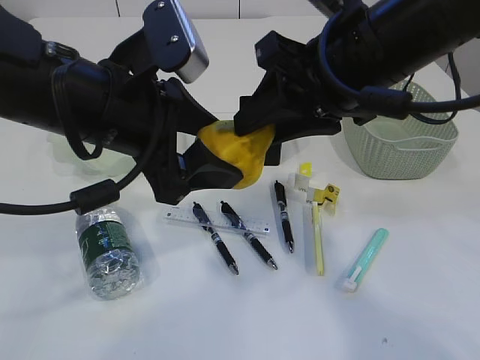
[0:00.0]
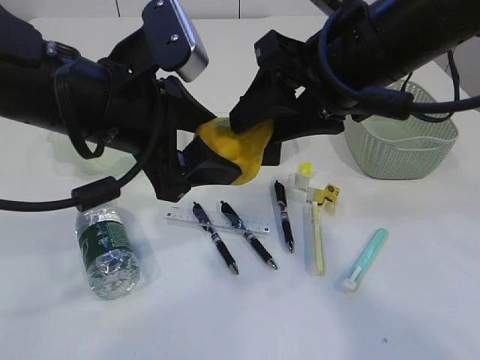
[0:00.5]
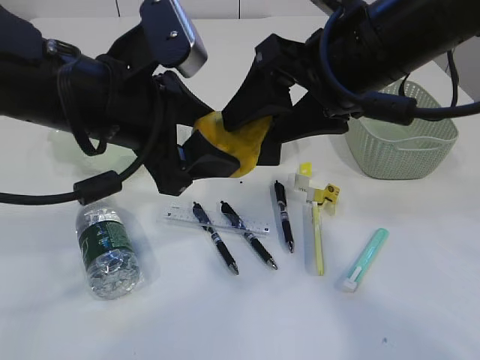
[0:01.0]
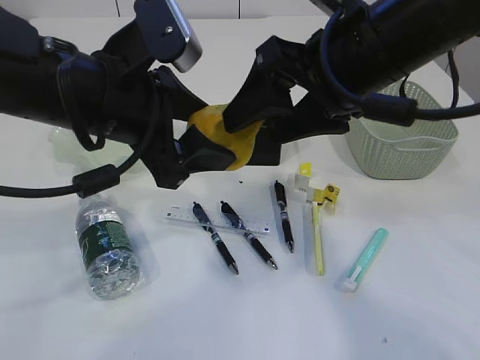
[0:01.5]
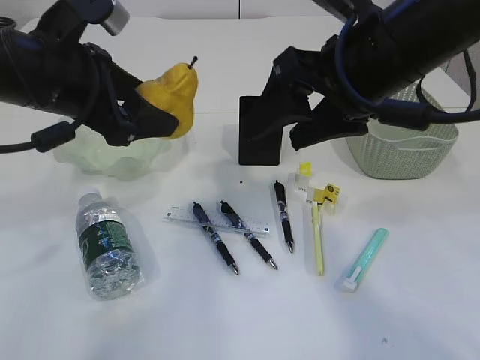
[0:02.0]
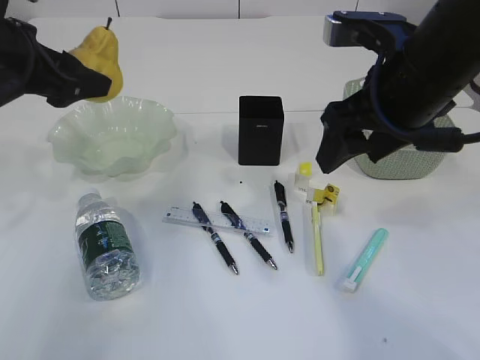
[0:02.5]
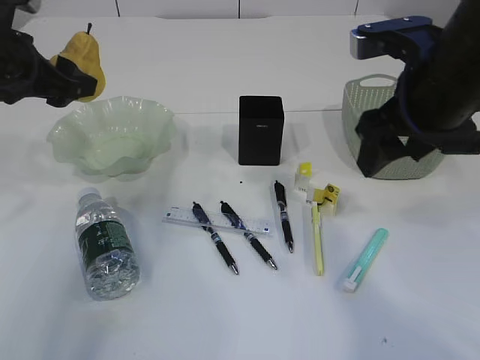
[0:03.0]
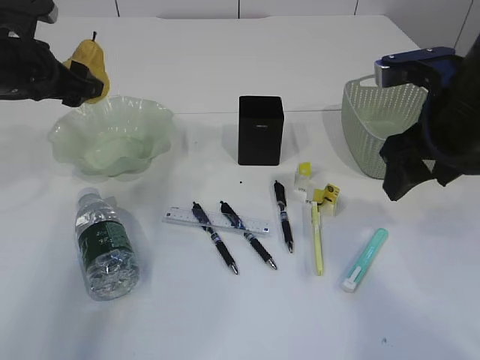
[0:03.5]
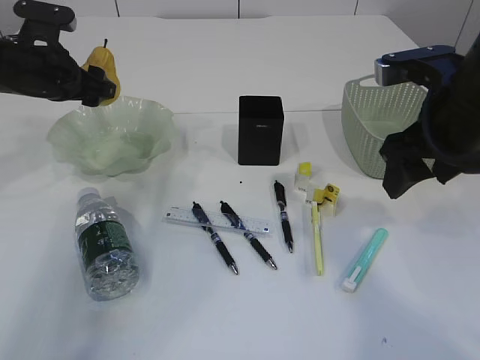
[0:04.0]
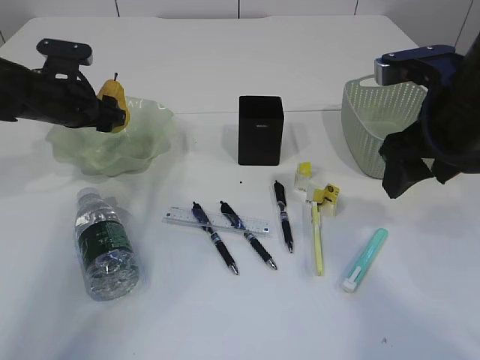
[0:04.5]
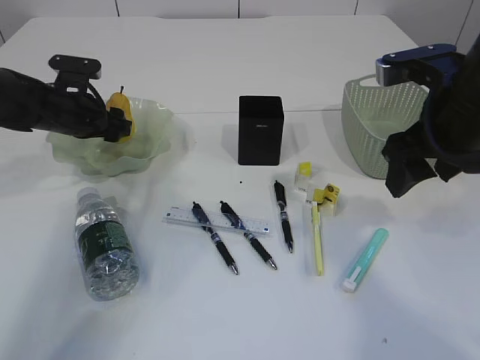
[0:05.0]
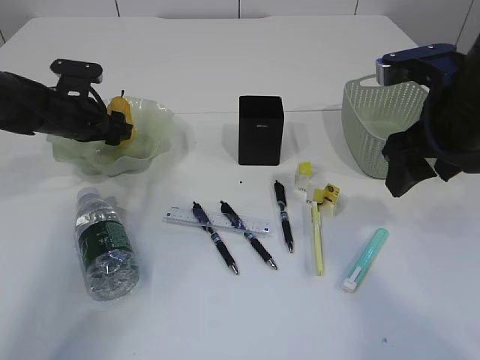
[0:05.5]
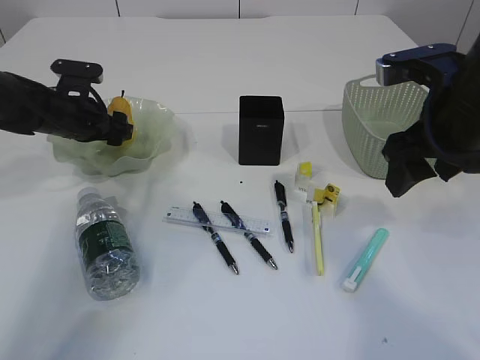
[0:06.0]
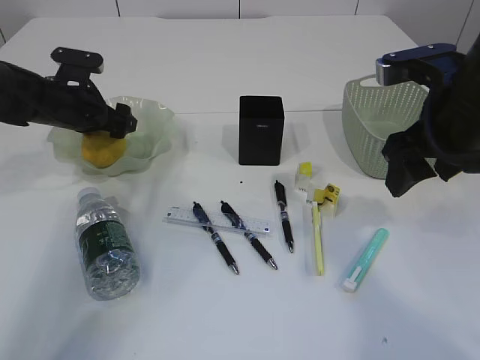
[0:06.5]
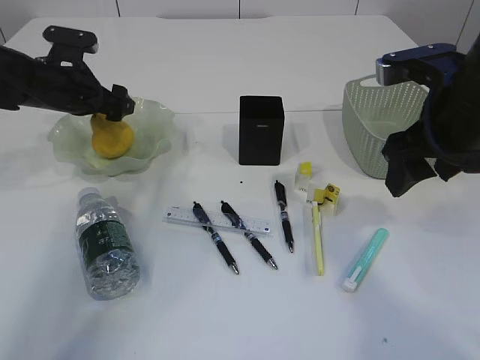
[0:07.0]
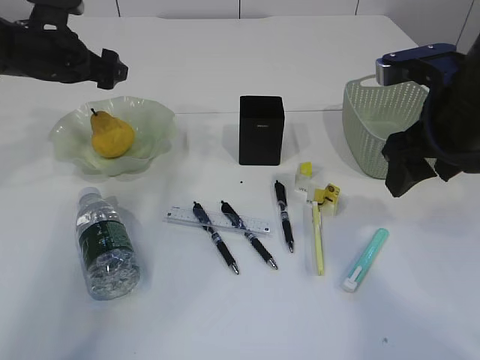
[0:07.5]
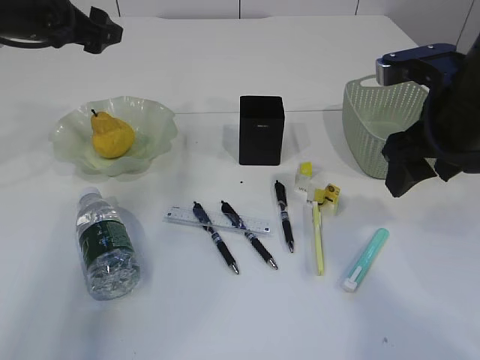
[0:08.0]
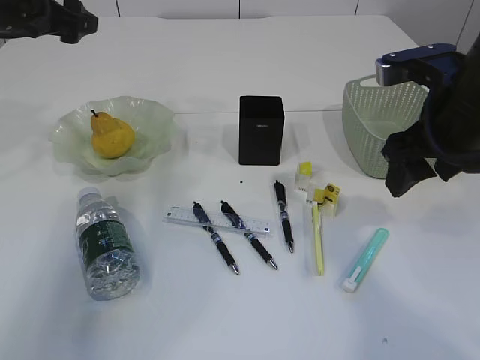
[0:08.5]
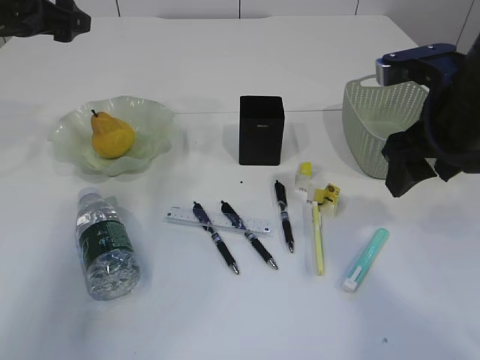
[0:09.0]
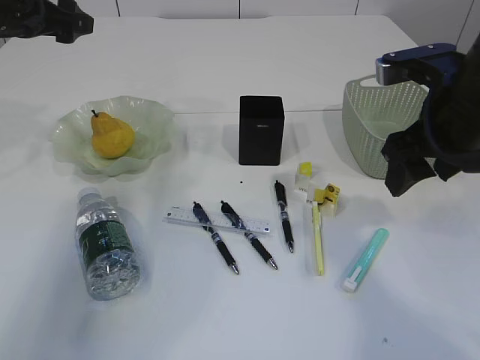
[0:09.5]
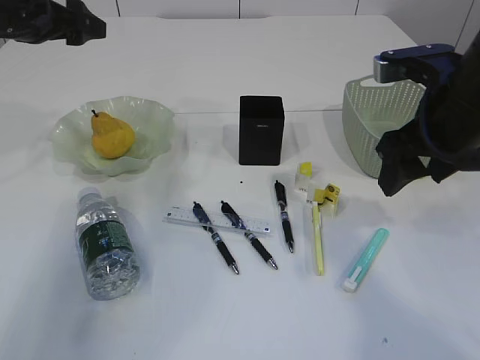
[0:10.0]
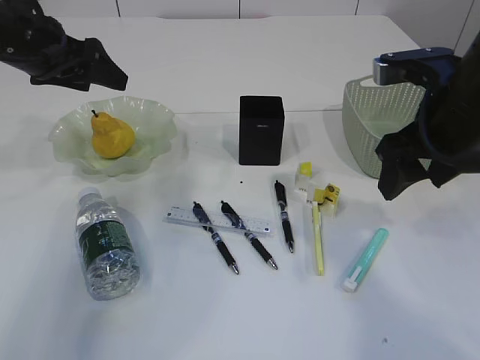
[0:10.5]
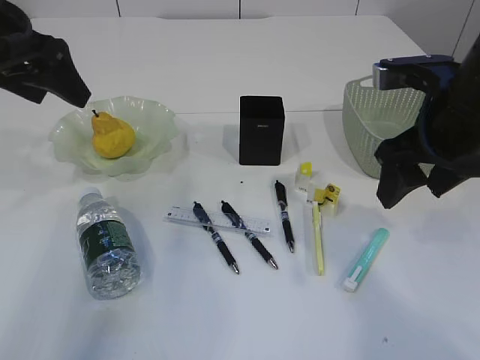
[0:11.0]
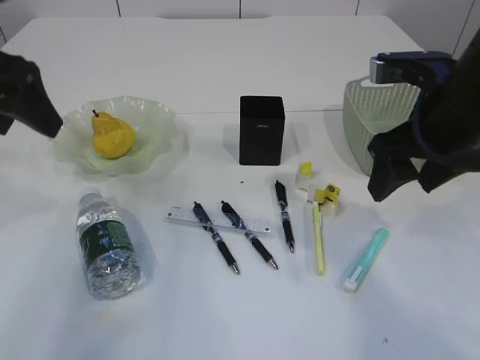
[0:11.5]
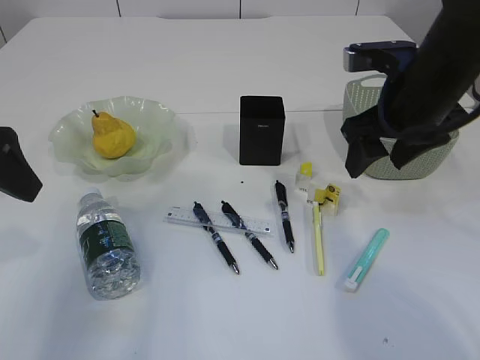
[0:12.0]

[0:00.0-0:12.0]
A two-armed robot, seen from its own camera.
Step, 0:02.0 to 0:07.0: Place the pear in the plate.
0:00.0 to 0:02.0: The left gripper goes some 5 cm to the left. The right gripper opens up.
0:02.0 to 0:04.0: The left gripper moves forward, to the left and downward, some 15 cm. The right gripper shifts roughly 10 cm to the right.
0:04.0 to 0:06.0: The left gripper heads downward, covering roughly 10 cm.
0:06.0 to 0:08.0: The left gripper heads upward, covering approximately 15 cm.
0:08.0 to 0:10.0: The grippers move only a little.
0:10.0 to 0:12.0: The left gripper shifts approximately 20 cm backward.

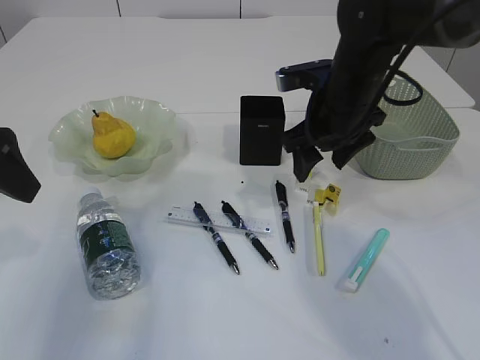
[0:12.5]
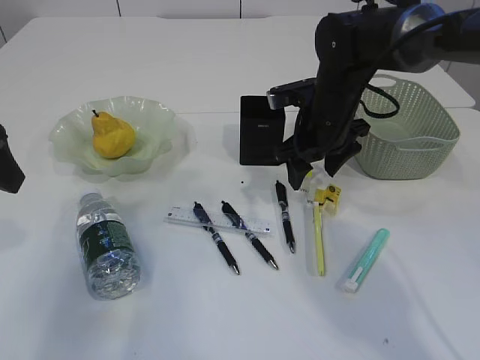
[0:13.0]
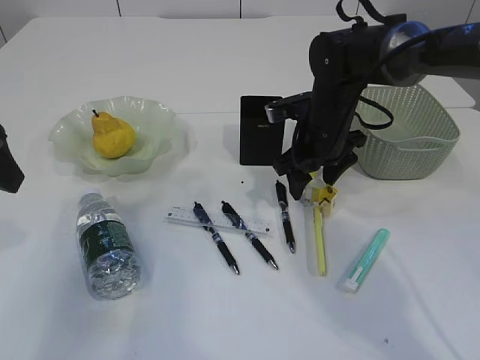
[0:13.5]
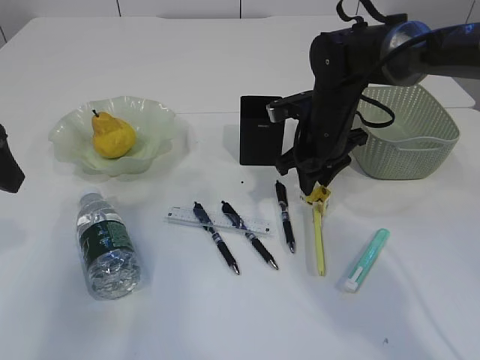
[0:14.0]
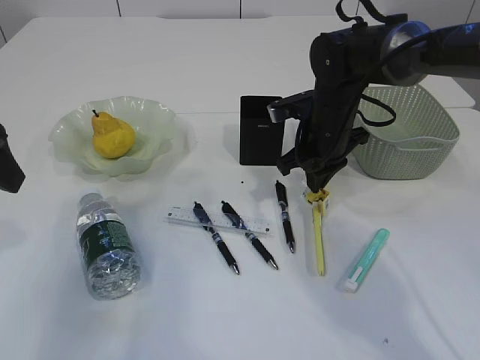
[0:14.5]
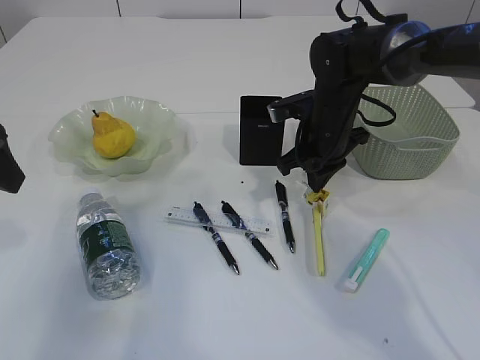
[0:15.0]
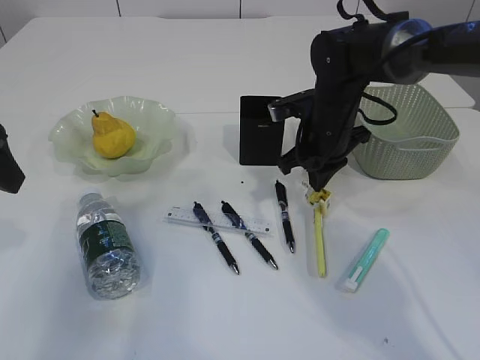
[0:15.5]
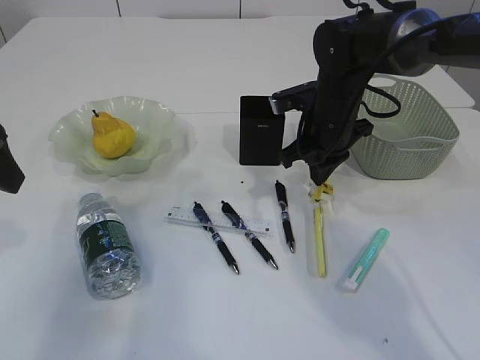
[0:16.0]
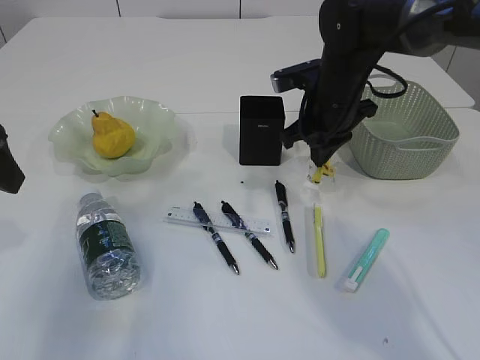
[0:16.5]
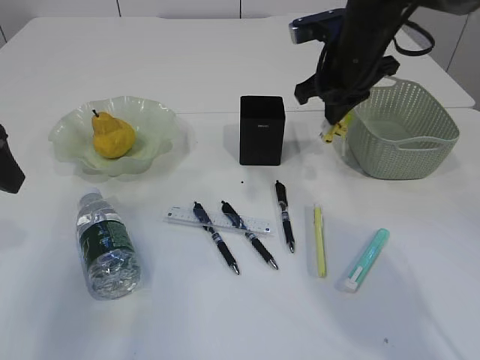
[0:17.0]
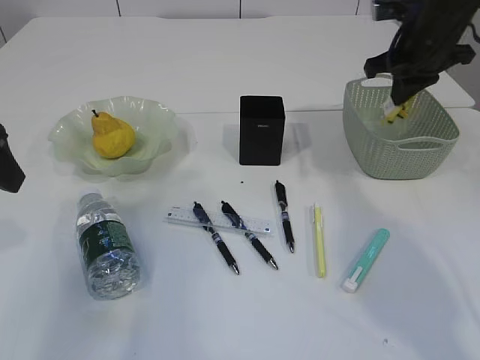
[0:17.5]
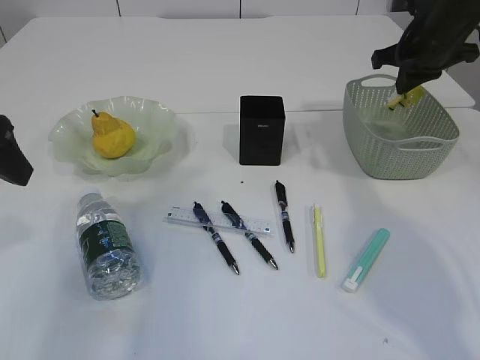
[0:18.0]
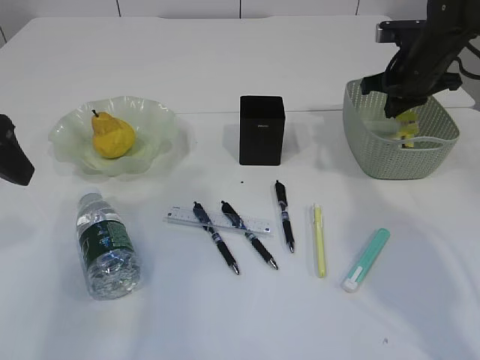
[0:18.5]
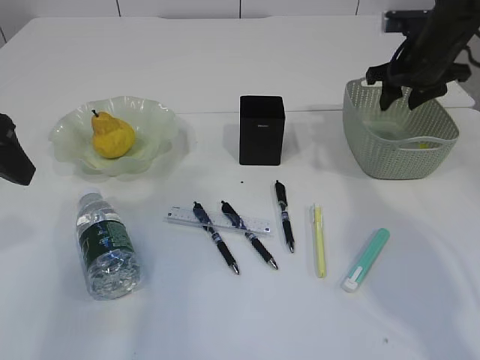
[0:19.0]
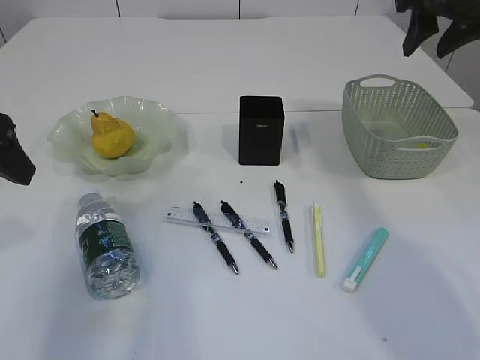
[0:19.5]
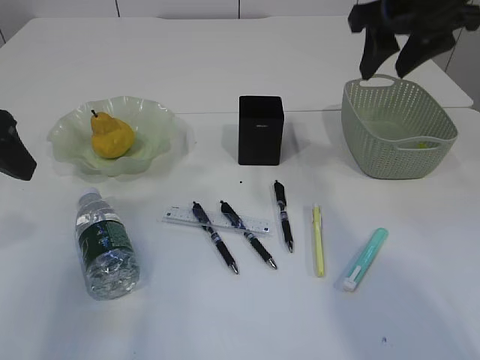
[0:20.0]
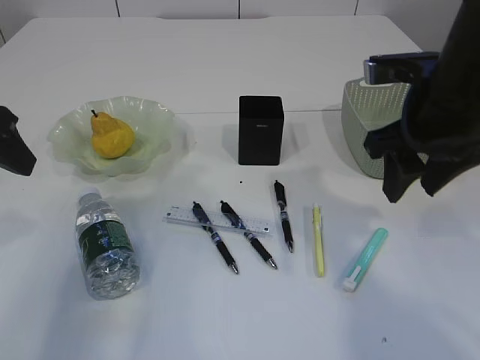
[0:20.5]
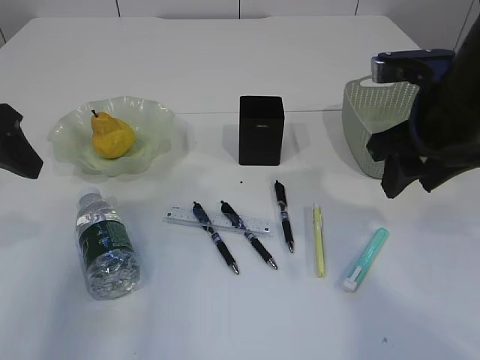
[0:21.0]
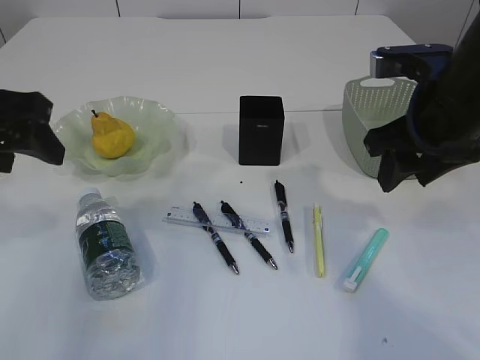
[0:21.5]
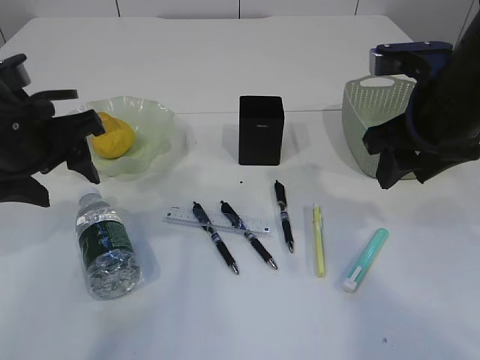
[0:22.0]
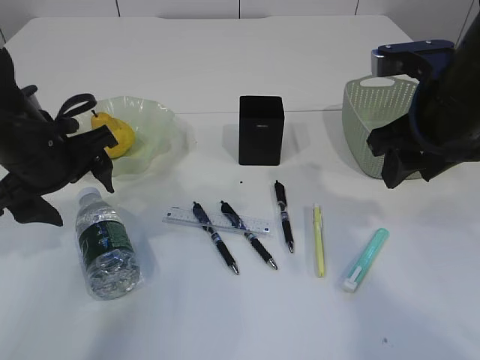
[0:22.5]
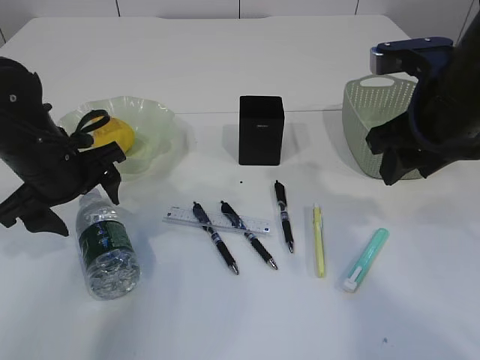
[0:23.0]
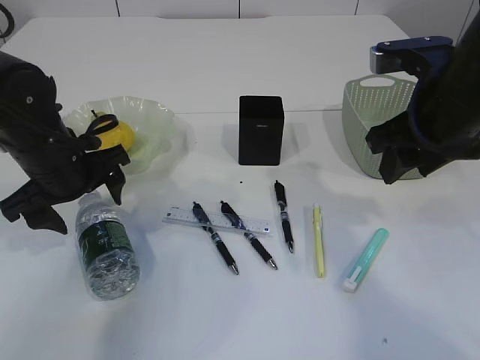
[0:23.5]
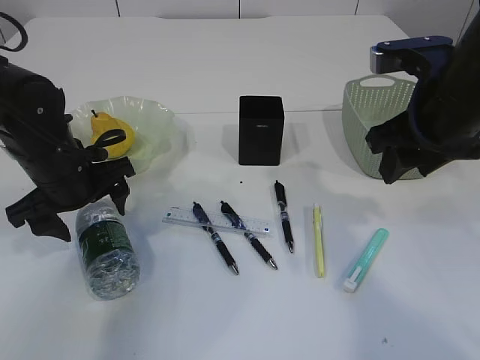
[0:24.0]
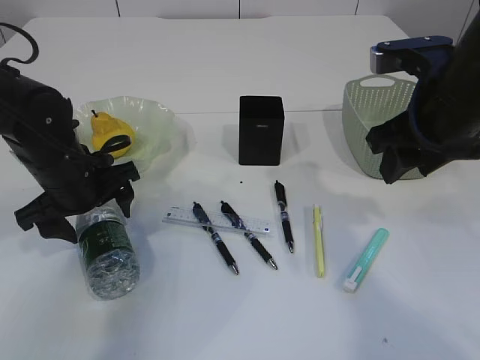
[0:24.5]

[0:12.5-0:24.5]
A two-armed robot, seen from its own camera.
Step, 0:12.5 to 0:16.5: Pick up the waste paper.
Step, 0:17.0 to 0:19.0: Place the waste paper in the basket.
0:12.5 to 0:14.5: The right gripper is displaced downward by approximately 5 cm, and closes.
0:14.5 to 0:16.5: There are only small adjustments of the grippers.
0:16.5 to 0:18.5: The right gripper travels to the right and forward by roughly 15 cm.
0:18.5 to 0:20.5: The right gripper heads backward and to the left, covering roughly 20 cm, and opens up.
0:20.5 to 0:22.5: The left gripper heads downward and to the right, covering roughly 10 cm.
0:22.5 to 0:24.5: The left gripper travels downward by about 5 cm.

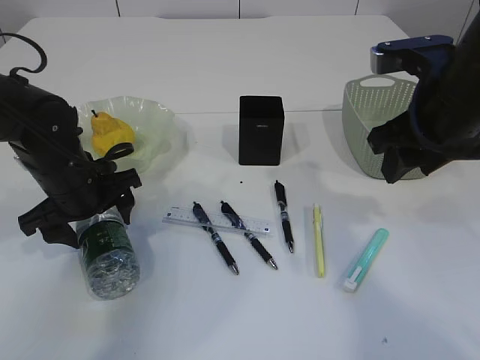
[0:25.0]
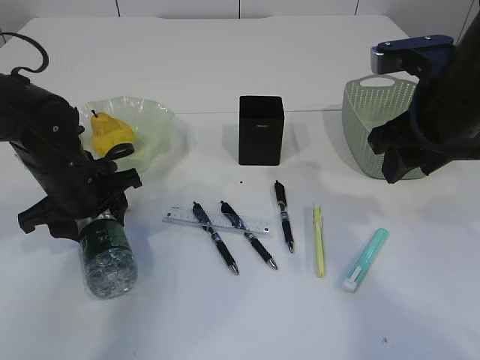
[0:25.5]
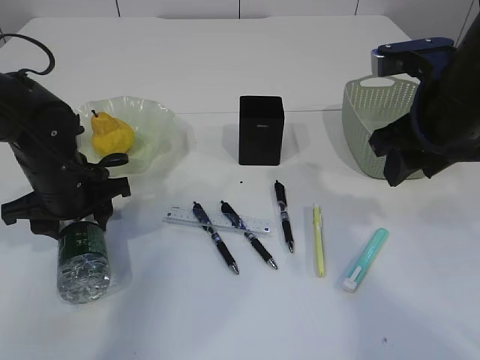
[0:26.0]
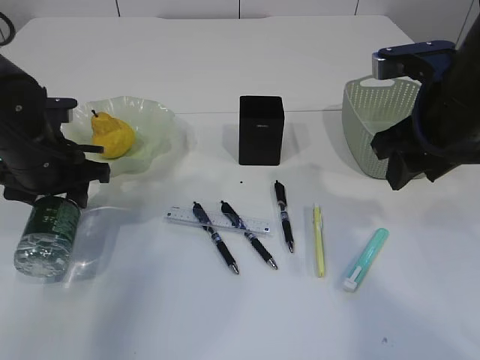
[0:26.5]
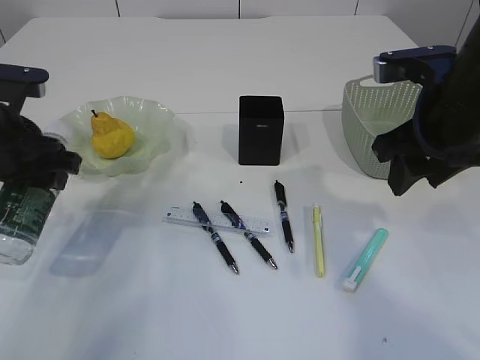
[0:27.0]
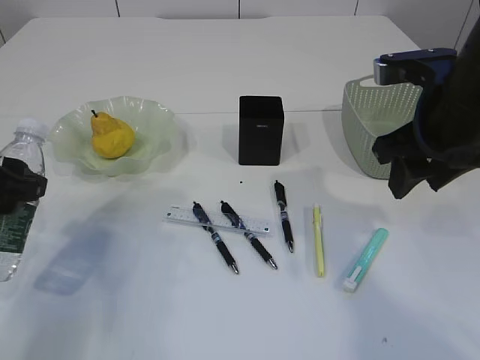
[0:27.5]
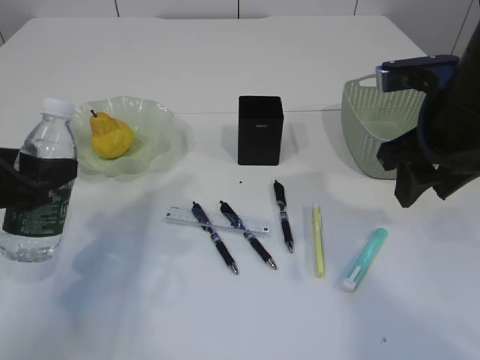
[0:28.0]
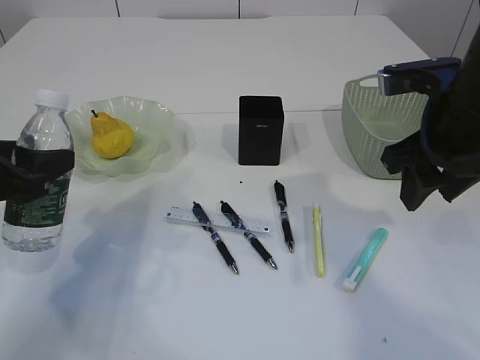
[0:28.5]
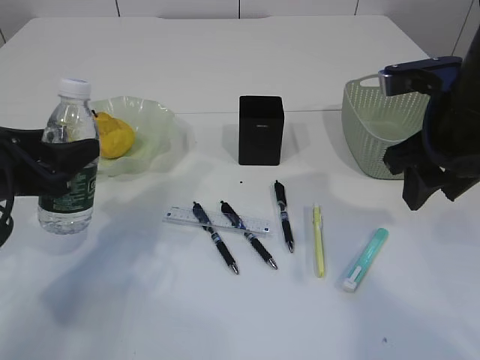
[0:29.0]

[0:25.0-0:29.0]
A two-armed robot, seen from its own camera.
0:25.0 to 0:27.0: The left gripper goes some 10 cm upward, and closes.
0:27.0 to 0:29.0: The left gripper ends up roughly 5 cm from where it was.
